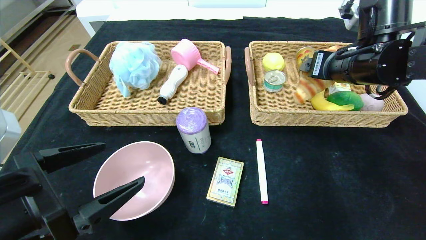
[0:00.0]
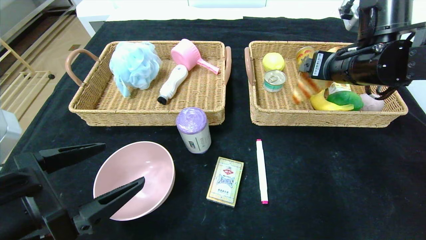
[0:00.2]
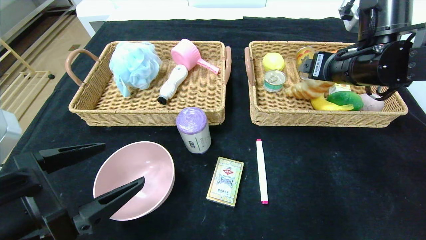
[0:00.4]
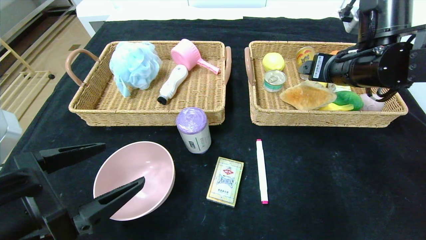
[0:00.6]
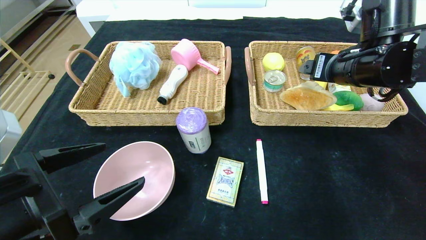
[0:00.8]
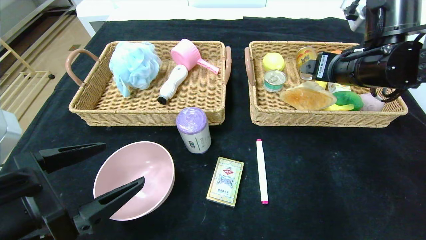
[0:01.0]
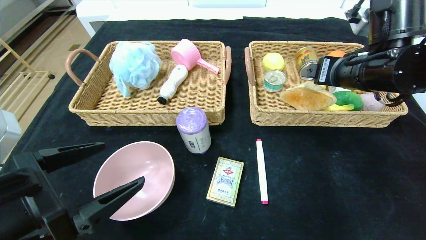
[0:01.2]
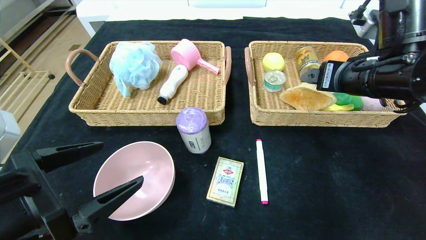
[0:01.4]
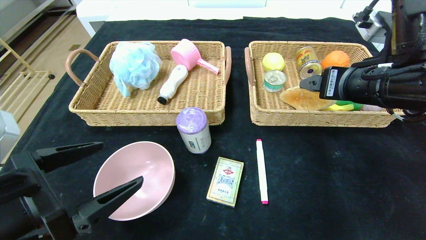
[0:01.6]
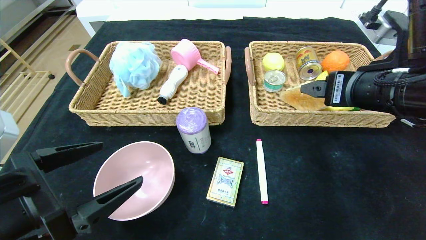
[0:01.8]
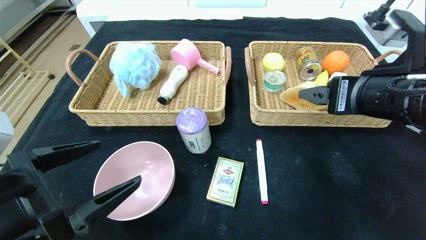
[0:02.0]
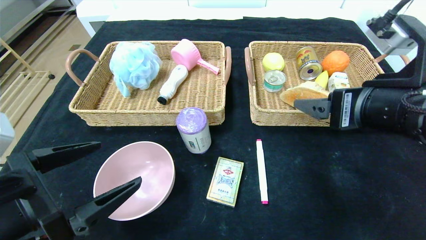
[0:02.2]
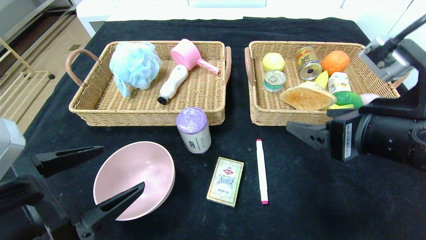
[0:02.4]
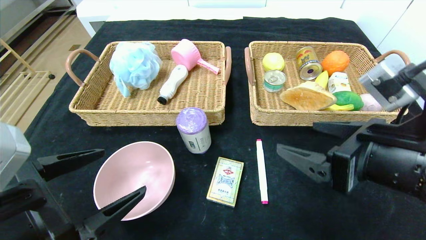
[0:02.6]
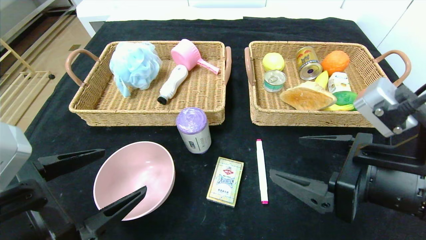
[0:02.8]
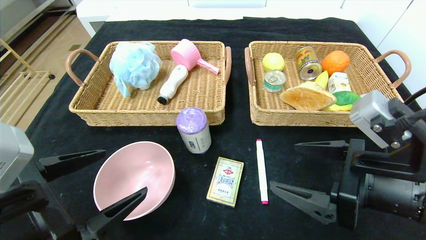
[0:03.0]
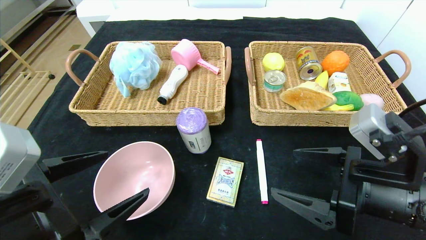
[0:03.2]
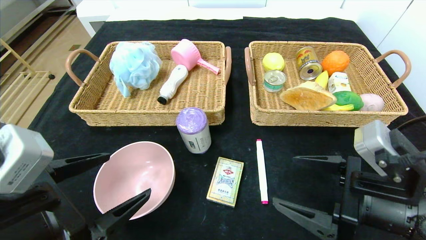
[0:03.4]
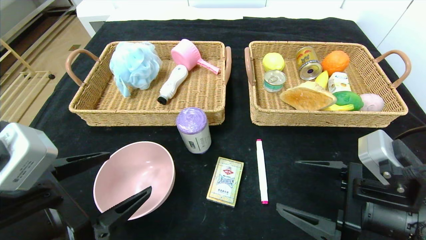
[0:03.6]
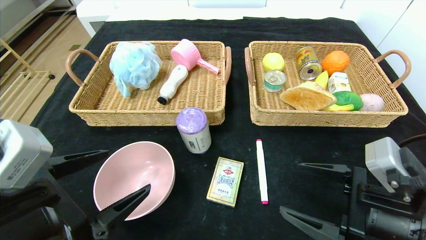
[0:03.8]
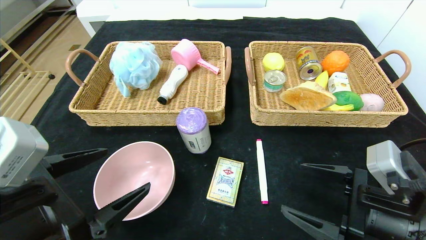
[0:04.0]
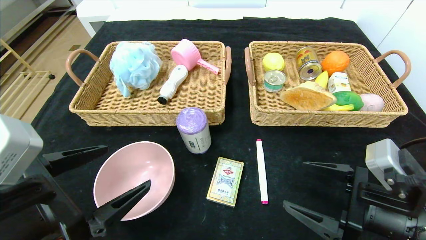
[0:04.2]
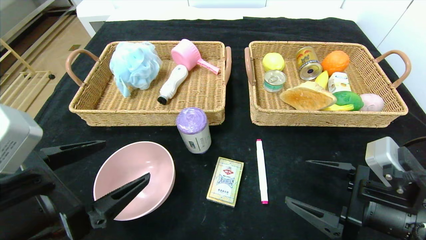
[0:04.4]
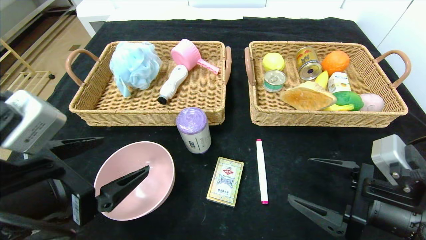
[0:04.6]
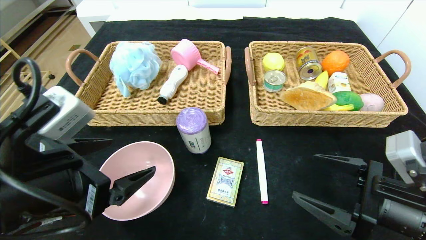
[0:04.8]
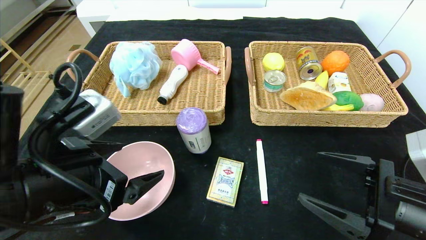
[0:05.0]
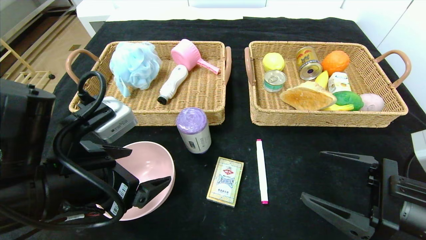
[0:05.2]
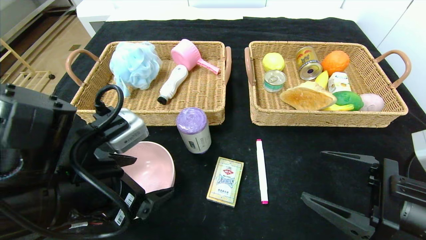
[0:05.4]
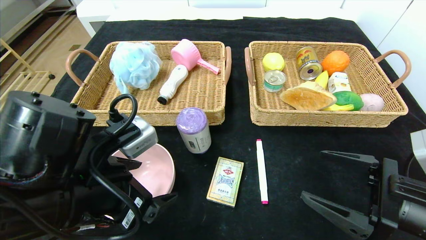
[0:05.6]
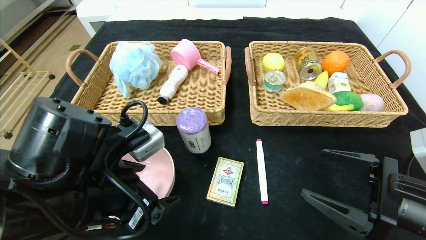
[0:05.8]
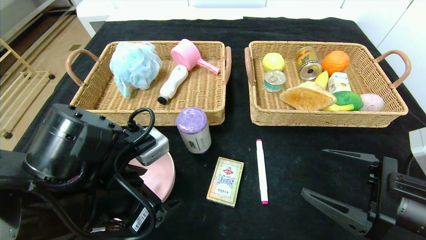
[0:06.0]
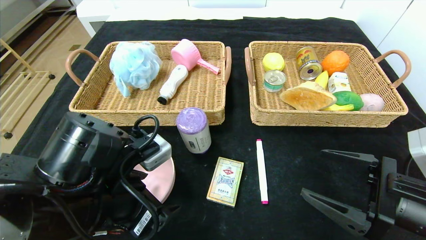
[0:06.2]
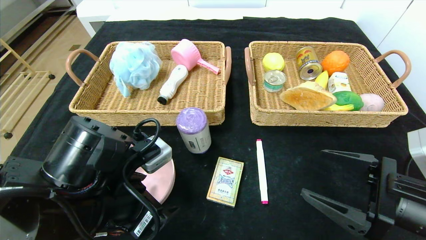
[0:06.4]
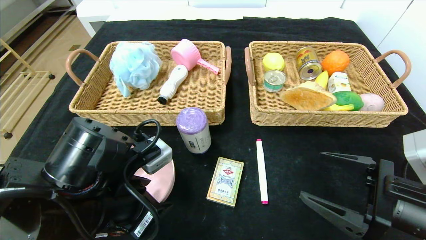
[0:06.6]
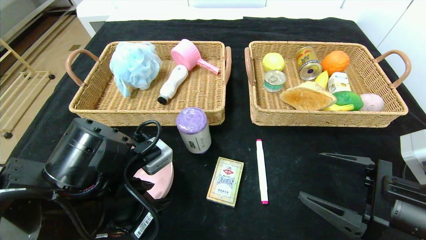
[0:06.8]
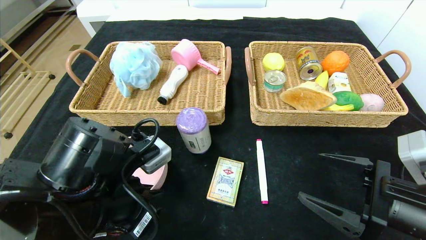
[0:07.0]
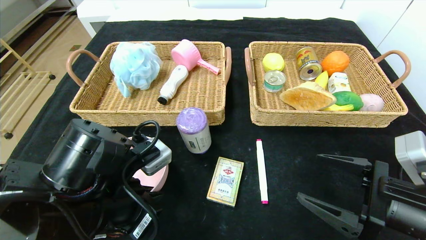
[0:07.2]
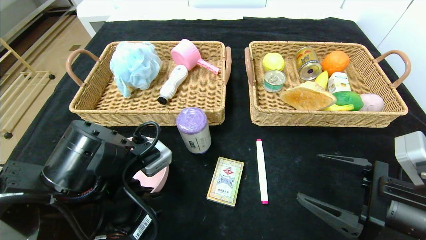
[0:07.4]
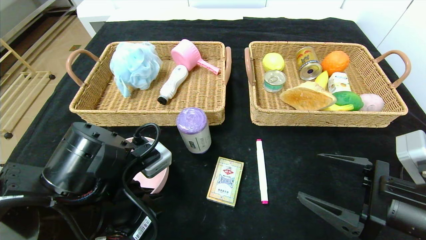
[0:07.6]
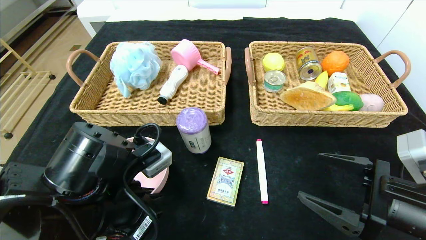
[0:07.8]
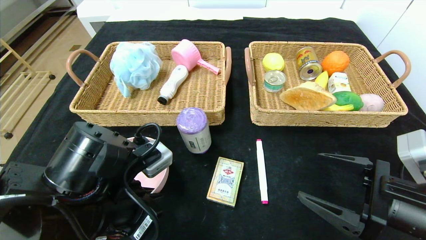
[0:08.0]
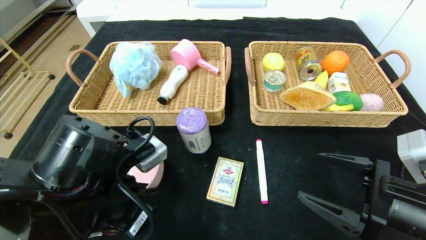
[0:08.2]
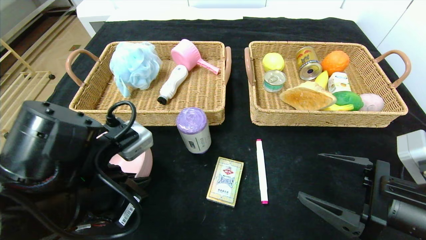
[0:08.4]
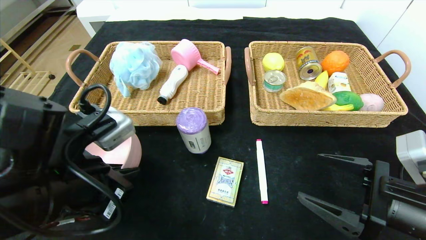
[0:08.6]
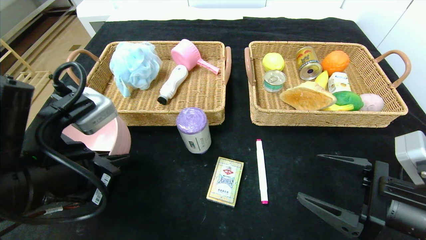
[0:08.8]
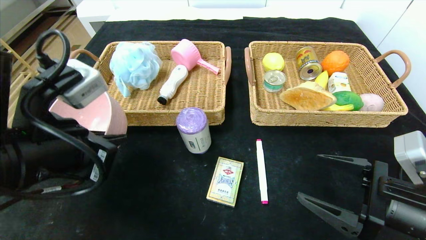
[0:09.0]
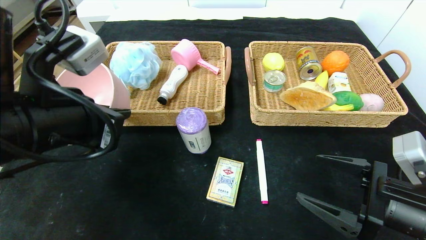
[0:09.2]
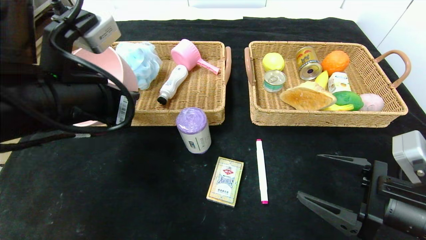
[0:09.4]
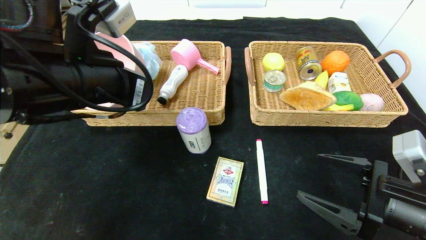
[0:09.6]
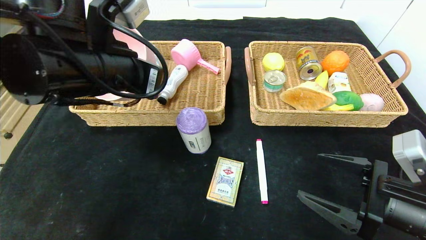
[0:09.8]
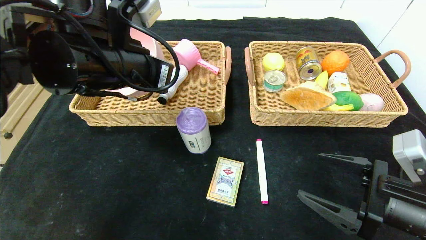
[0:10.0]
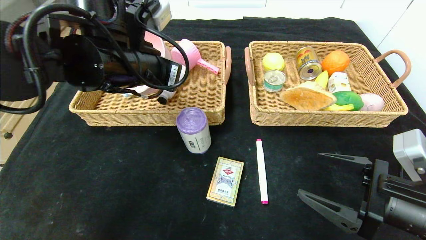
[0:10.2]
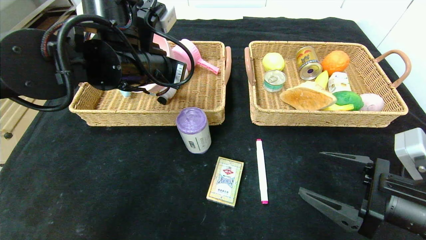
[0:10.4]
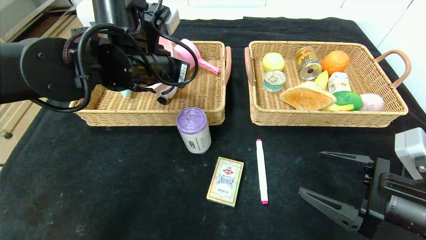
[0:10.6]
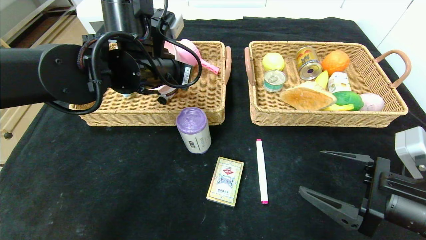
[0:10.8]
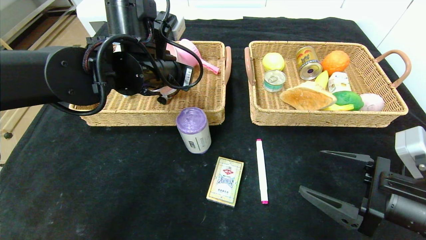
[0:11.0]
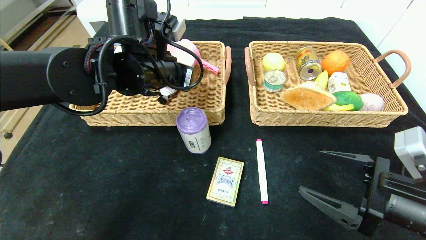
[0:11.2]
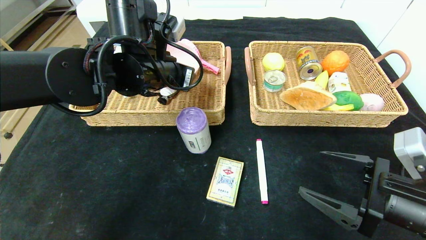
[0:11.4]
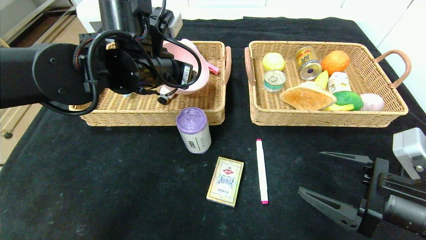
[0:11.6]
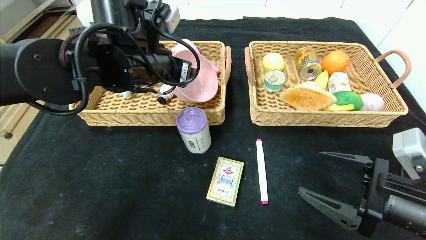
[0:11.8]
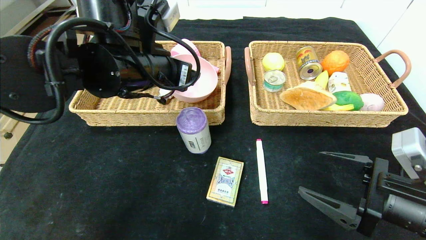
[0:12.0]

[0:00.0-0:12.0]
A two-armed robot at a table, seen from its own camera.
Step, 0.8 to 11.2 s: Grasp the pink bowl and put it in the left basket.
0.0 to 1.6 s: The right gripper shifts some 5 cm backward.
1.6 to 3.0 s: The right gripper moves backward and downward, roughly 10 cm.
3.0 to 4.4 s: The right gripper travels downward by some 5 cm.
4.4 to 6.0 s: The left gripper shifts approximately 10 cm forward and to the right.
6.0 to 7.6 s: The left gripper closes its fingers.
7.6 to 9.0 s: The left gripper moves upward, about 10 cm.
9.0 to 10.4 s: The left gripper heads forward and to the right, covering approximately 15 cm.
10.4 to 12.0 s: The left gripper opens its fingers.

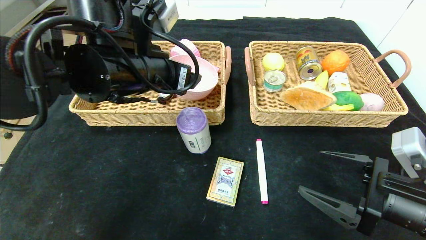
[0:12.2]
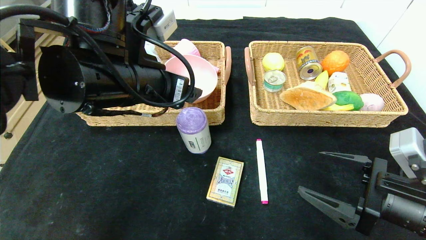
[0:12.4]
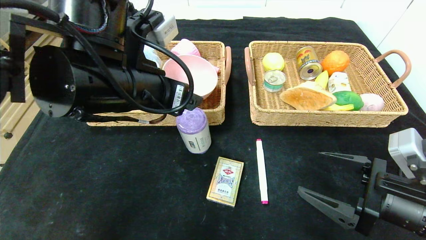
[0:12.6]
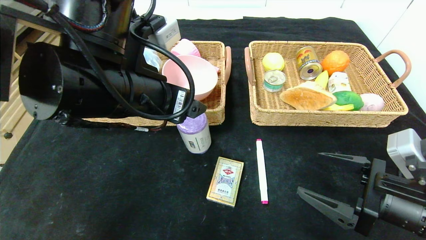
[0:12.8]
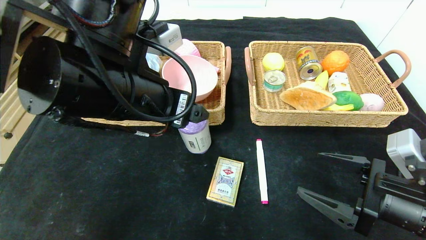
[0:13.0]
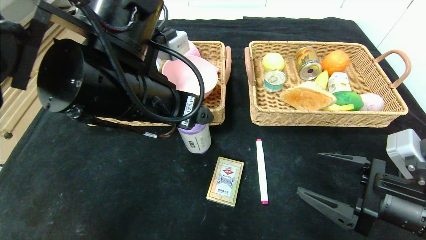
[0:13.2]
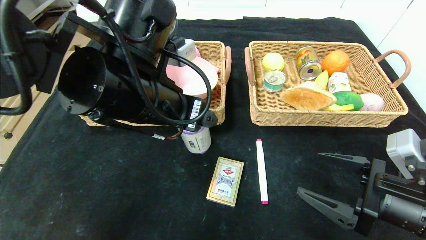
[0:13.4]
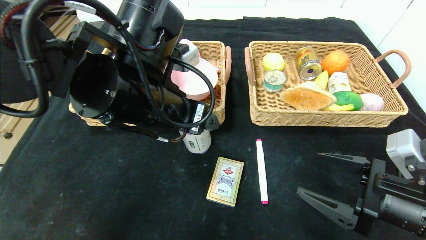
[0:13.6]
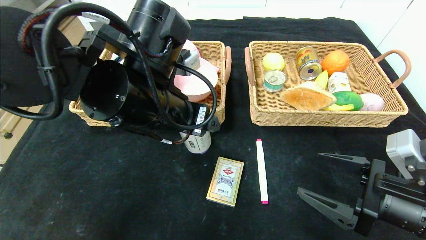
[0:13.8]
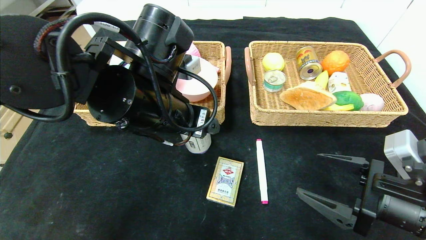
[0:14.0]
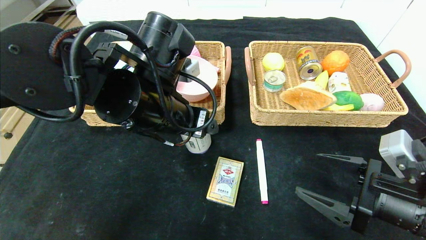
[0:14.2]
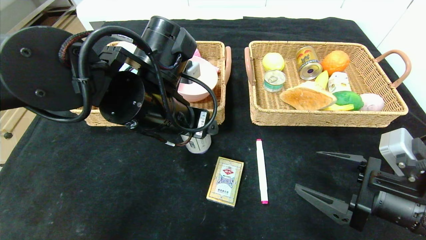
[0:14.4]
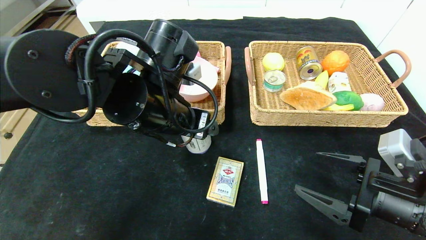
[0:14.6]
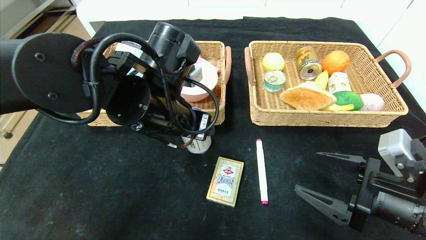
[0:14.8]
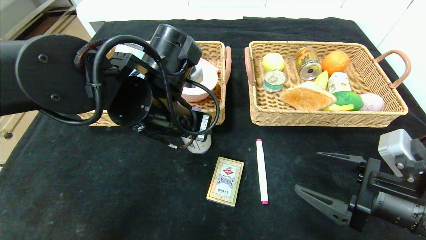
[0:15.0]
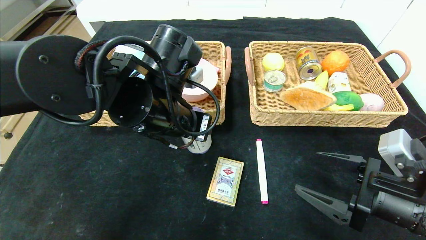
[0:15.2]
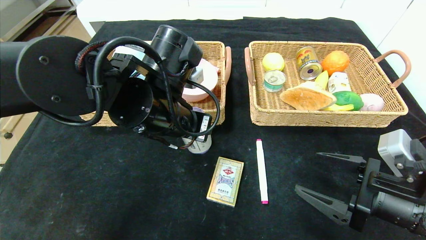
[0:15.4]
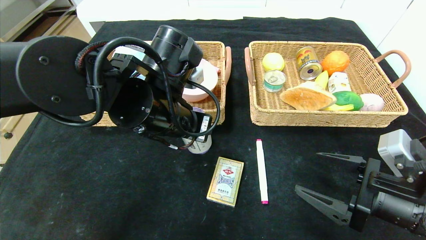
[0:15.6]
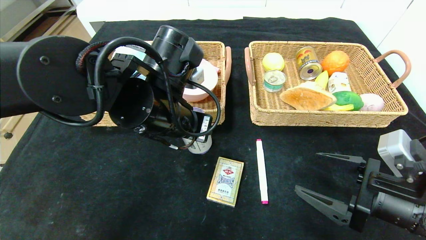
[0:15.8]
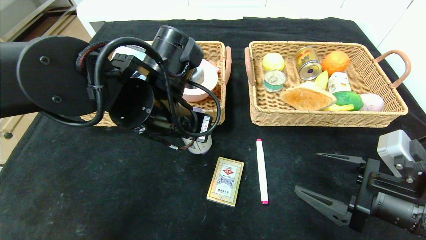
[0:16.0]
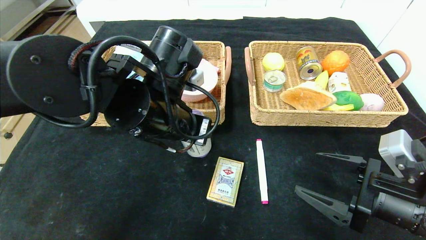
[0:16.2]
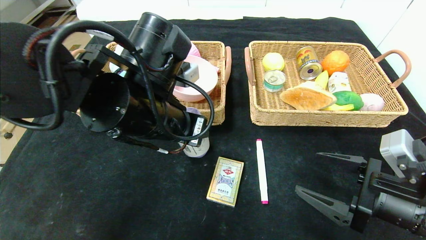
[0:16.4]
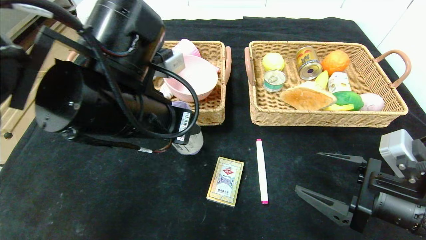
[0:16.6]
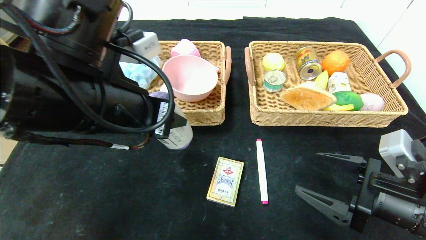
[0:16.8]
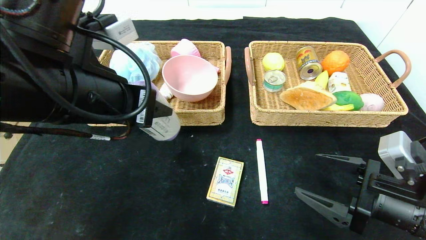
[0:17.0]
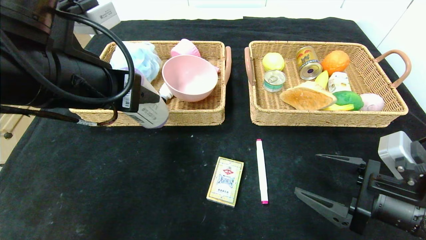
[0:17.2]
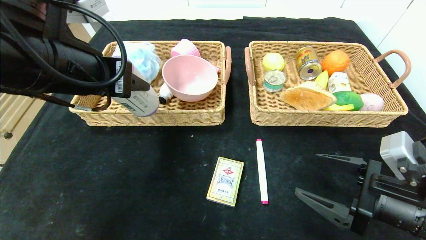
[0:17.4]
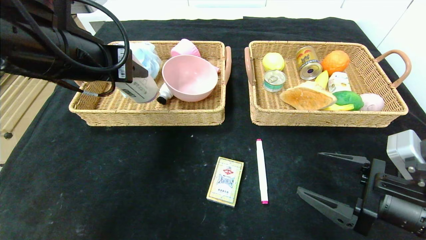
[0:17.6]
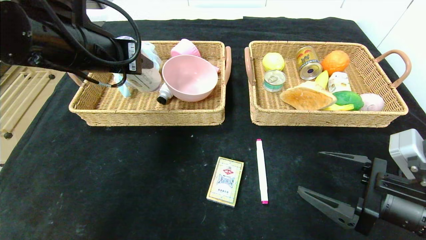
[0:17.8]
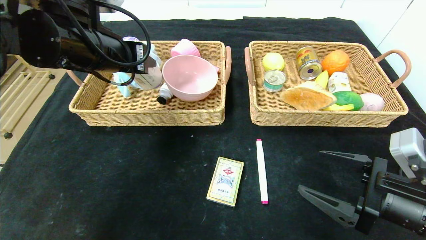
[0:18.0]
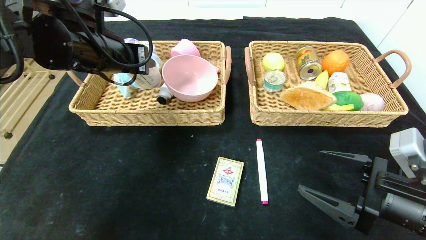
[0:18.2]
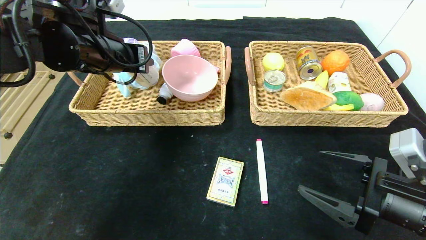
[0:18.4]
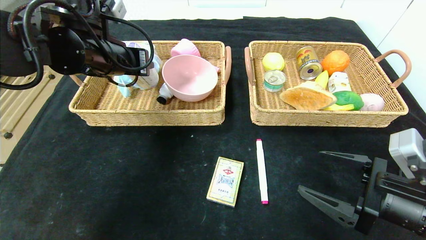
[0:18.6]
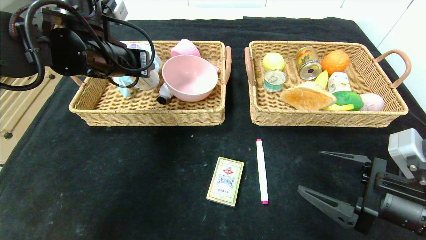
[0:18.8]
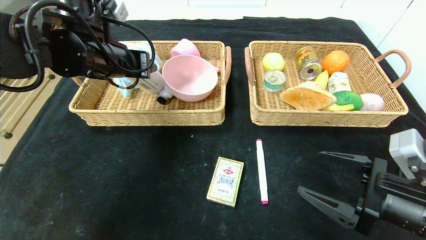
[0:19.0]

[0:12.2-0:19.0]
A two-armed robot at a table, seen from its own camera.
13.6 to 15.0 s: The left gripper closes its fingers.
15.0 to 16.2 s: Both grippers stay put.
16.2 to 17.6 s: The left gripper shifts about 15 cm to the left and upward.
17.6 to 19.0 s: The left gripper goes some 5 cm forward.
